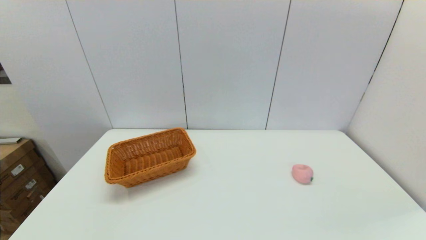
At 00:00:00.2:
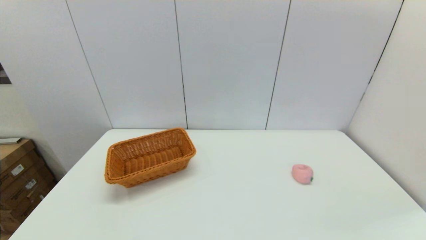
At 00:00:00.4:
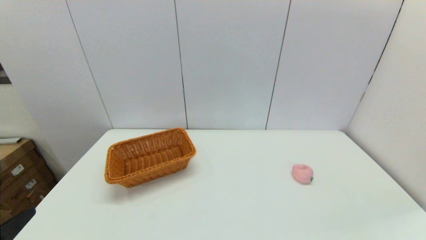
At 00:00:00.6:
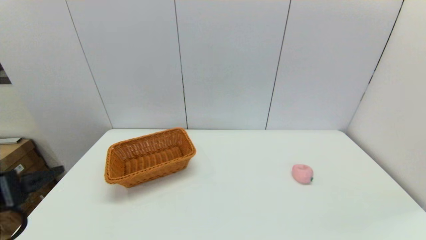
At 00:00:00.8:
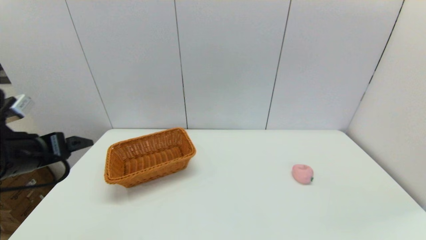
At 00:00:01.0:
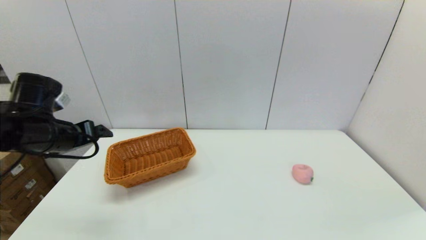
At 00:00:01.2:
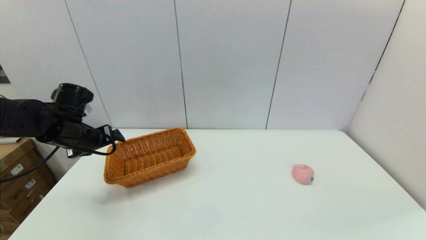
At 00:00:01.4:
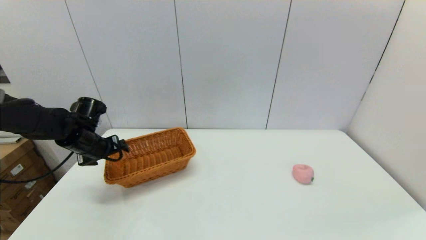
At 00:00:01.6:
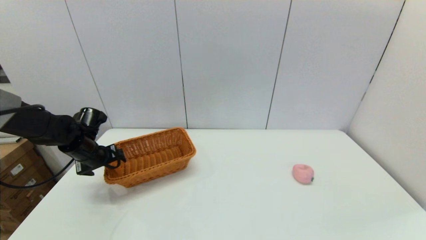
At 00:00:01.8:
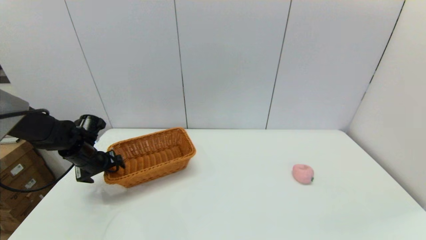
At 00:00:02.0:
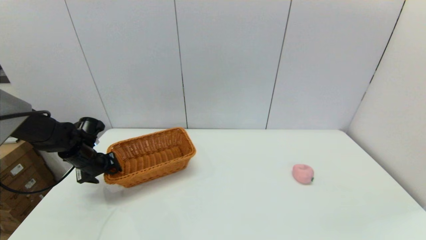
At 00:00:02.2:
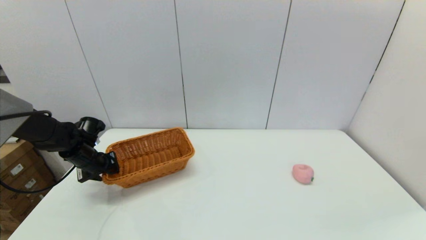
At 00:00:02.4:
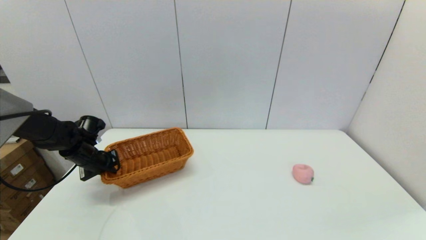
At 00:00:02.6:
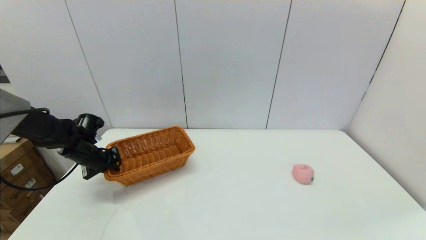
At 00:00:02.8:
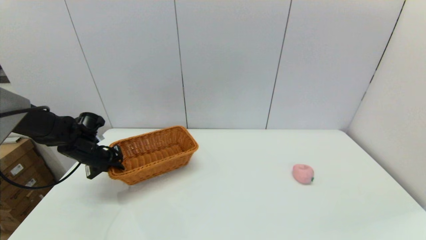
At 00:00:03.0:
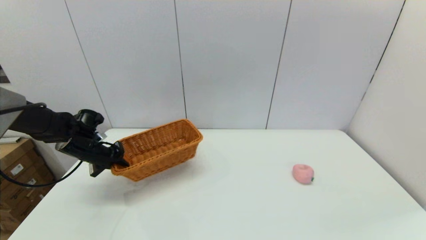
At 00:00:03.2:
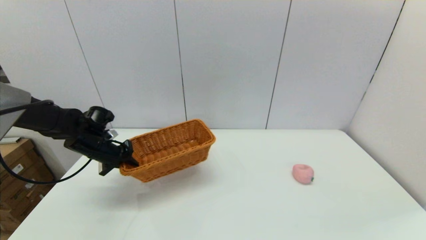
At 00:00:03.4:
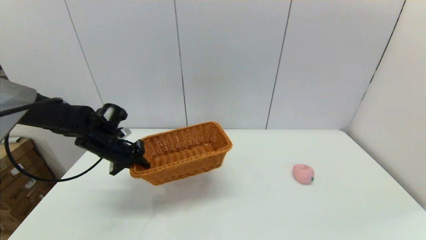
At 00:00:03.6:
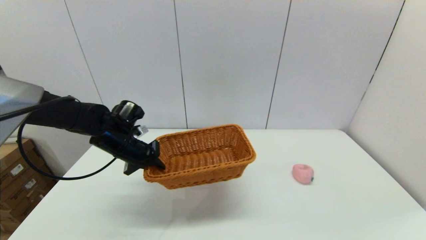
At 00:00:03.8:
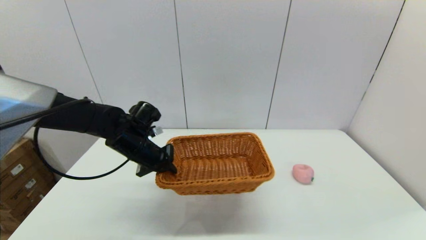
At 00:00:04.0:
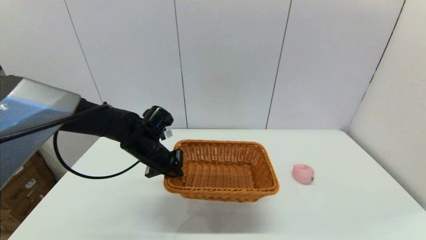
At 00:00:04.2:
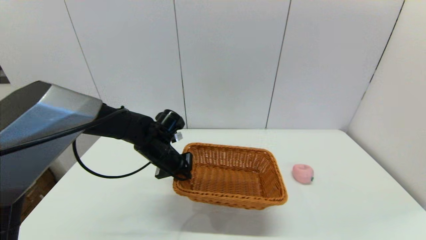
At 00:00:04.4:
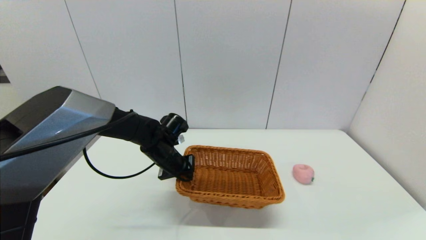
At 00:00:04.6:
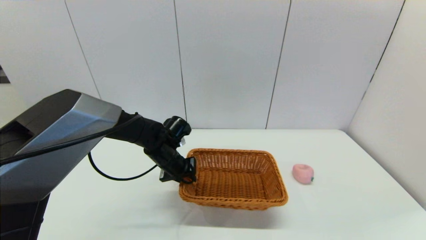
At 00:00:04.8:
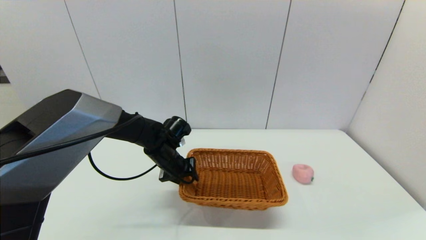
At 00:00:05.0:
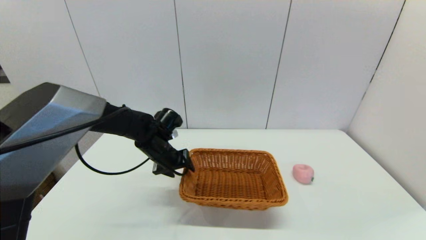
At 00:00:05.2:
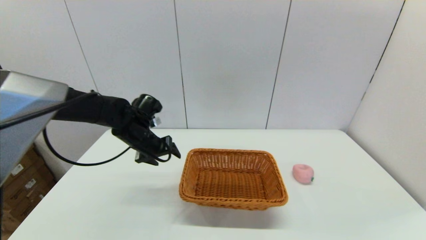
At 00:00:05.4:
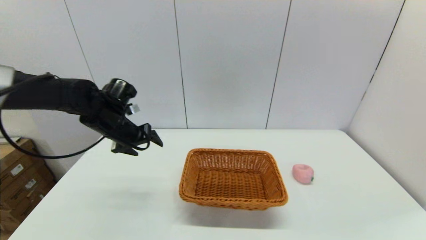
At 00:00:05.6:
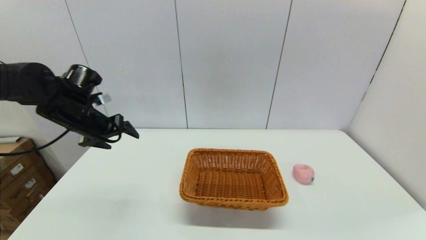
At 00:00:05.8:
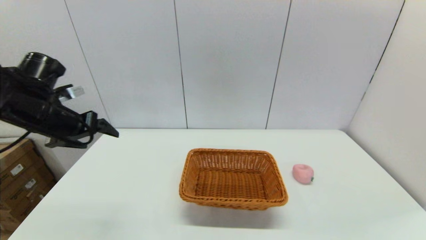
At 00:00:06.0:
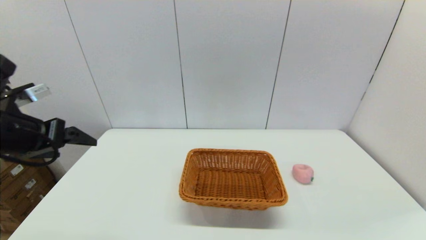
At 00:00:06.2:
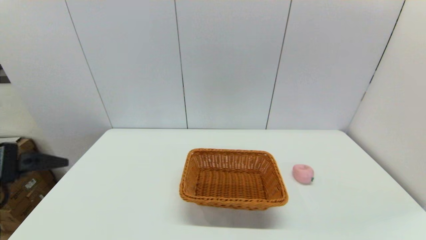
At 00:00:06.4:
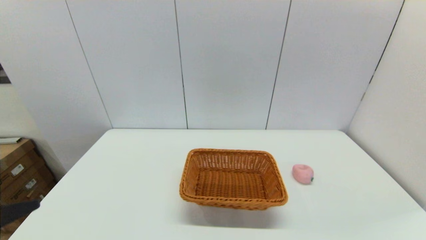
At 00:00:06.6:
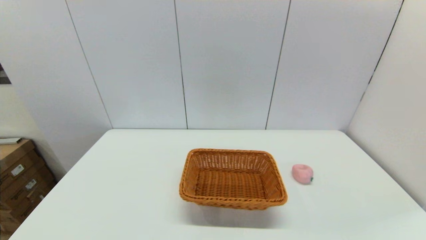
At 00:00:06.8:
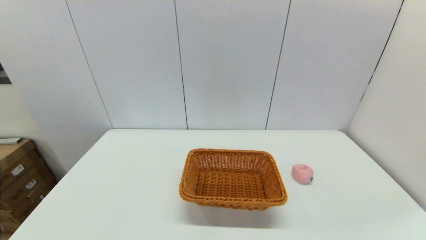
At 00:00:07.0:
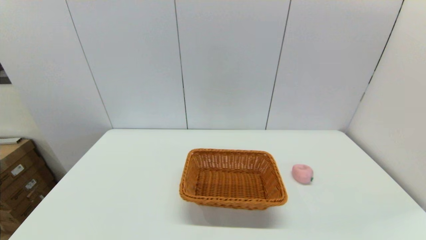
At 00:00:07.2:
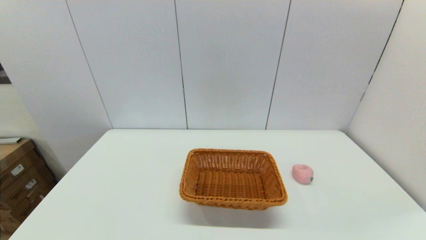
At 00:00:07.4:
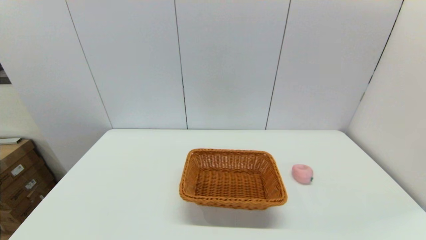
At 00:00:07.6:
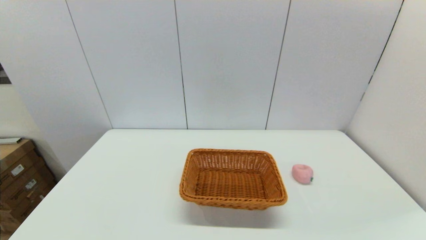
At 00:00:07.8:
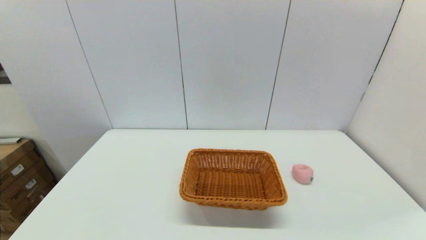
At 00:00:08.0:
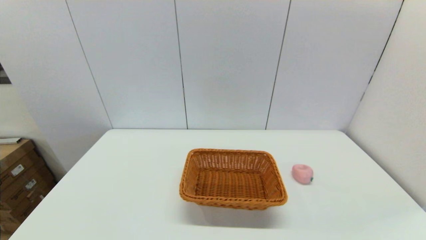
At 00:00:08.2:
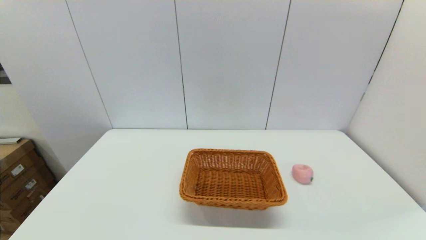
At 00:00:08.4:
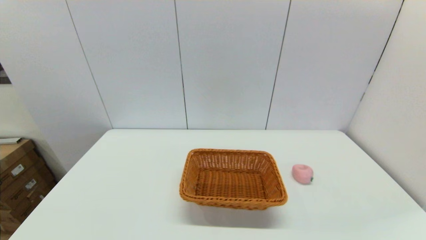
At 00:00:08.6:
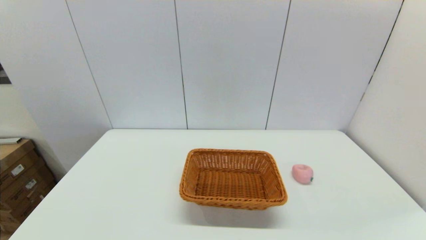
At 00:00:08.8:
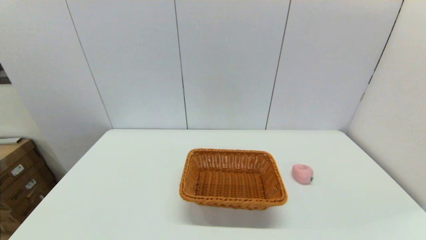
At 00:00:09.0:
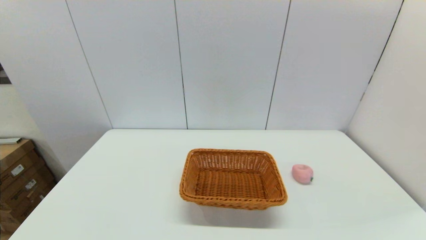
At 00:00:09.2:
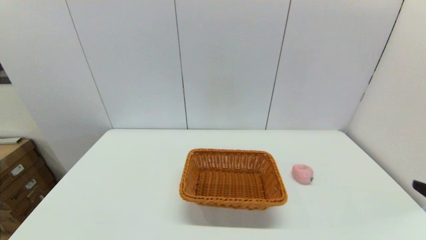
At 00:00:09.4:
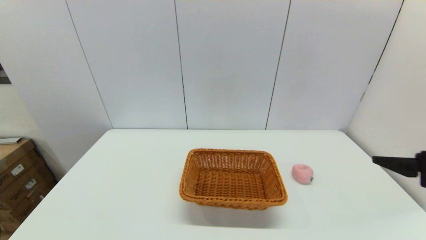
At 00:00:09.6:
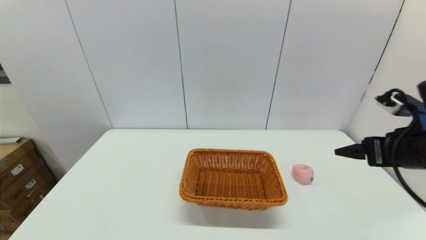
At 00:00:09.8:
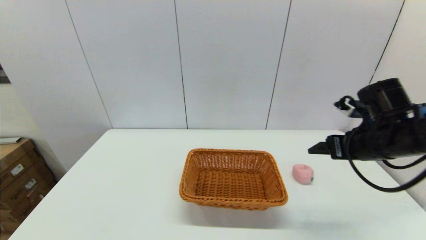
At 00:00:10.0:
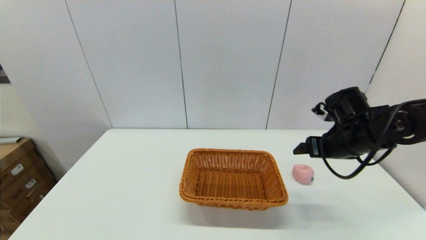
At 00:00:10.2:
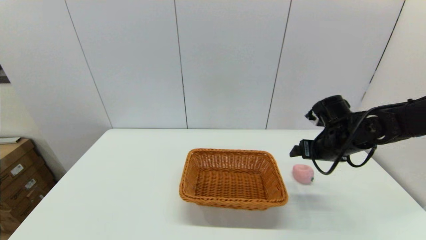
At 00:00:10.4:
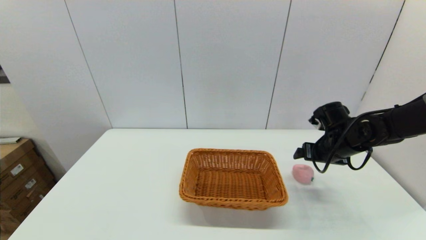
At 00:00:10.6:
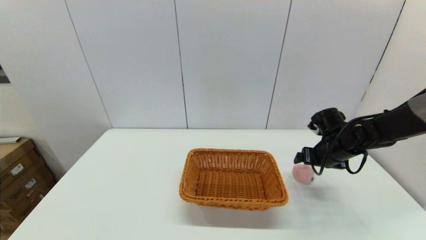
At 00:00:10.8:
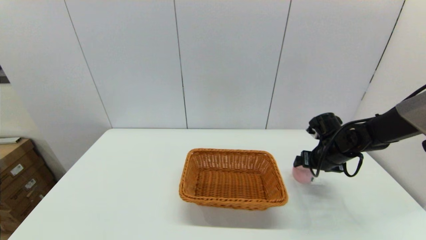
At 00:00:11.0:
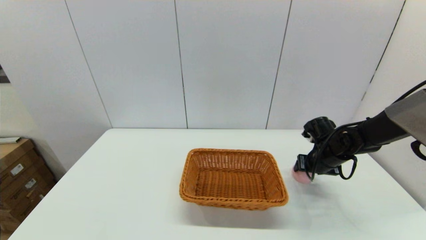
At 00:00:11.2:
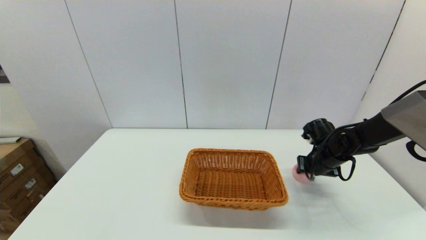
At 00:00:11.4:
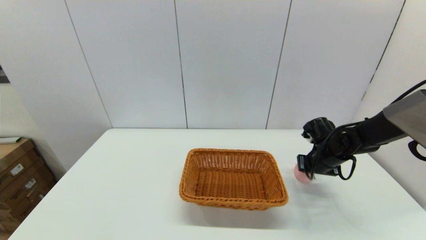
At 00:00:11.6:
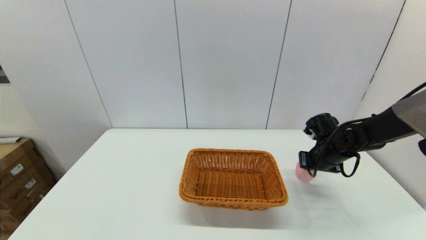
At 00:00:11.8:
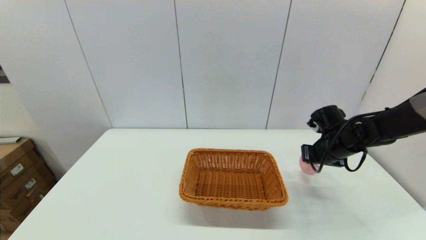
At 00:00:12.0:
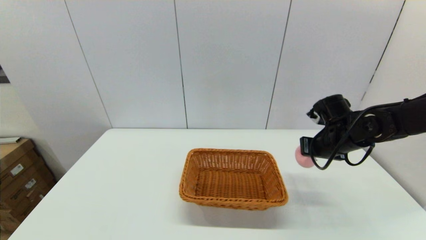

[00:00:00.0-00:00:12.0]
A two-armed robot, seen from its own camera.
Step, 00:00:00.0 to 00:00:02.4: Grasp the light basket with the left gripper.
Step, 00:00:02.8 to 00:00:05.2: Place the light basket on the middle of the table with the left gripper.
Step, 00:00:05.4 to 00:00:11.6: Grasp the peach with the right gripper.
00:00:00.0 to 00:00:01.6: The left gripper travels forward by approximately 40 cm.
00:00:01.6 to 00:00:03.0: The left gripper closes its fingers.
00:00:03.0 to 00:00:04.4: The left gripper moves to the right, approximately 20 cm.
00:00:04.4 to 00:00:06.0: The left gripper travels to the left, upward and backward by about 30 cm, and opens its fingers.
00:00:06.0 to 00:00:07.6: The left gripper moves backward and downward, roughly 25 cm.
00:00:09.0 to 00:00:10.4: The right gripper moves forward, approximately 35 cm.
00:00:10.4 to 00:00:12.0: The right gripper reaches approximately 5 cm downward, then returns, and closes.

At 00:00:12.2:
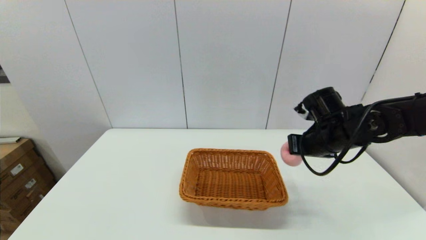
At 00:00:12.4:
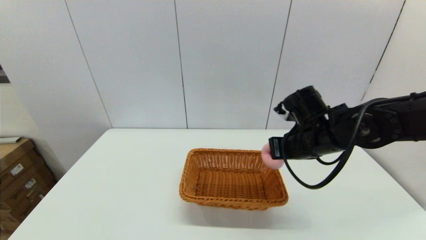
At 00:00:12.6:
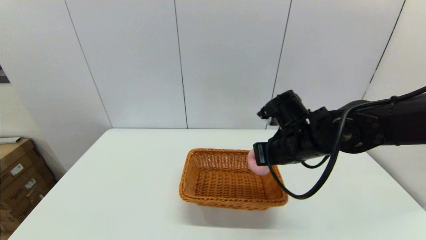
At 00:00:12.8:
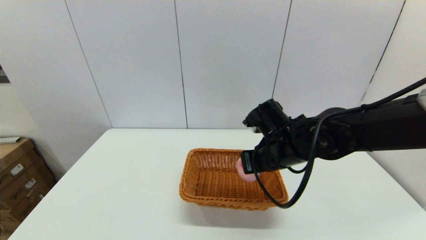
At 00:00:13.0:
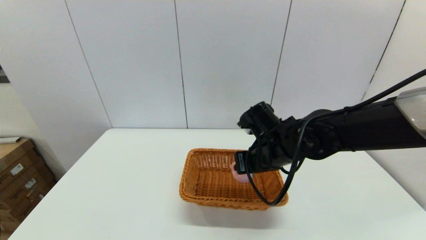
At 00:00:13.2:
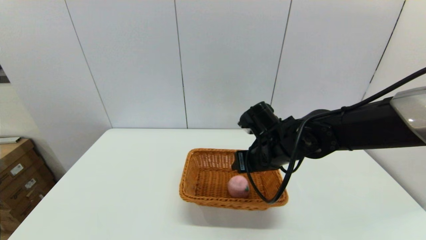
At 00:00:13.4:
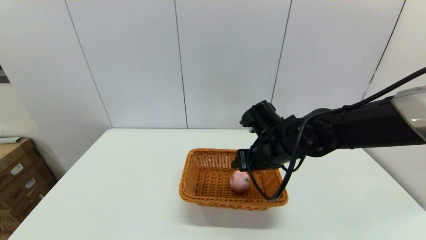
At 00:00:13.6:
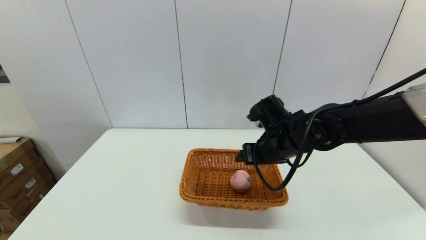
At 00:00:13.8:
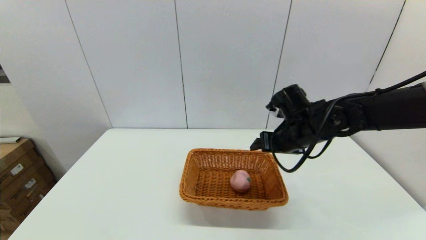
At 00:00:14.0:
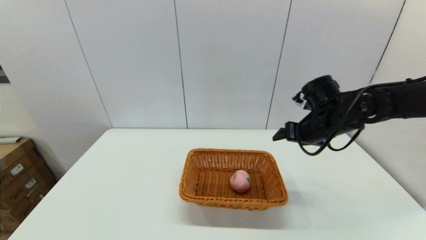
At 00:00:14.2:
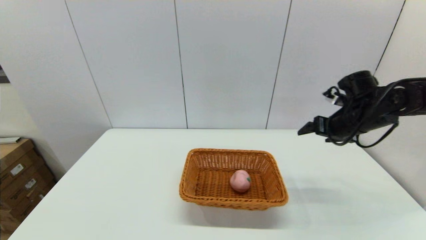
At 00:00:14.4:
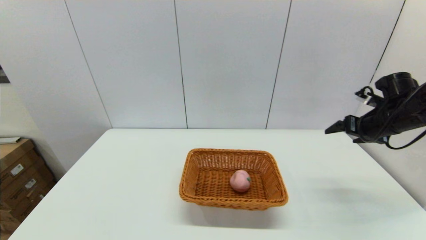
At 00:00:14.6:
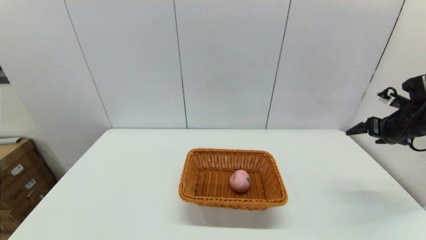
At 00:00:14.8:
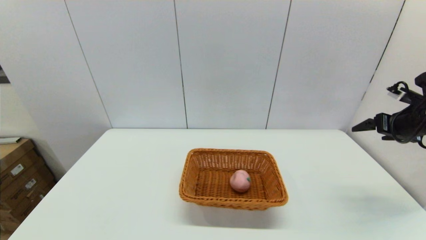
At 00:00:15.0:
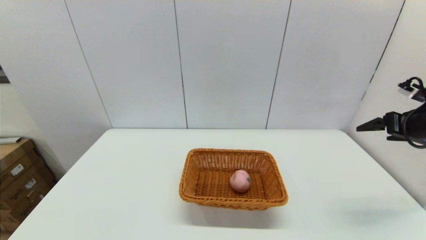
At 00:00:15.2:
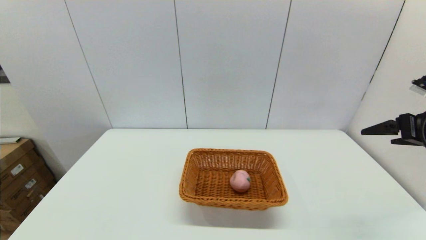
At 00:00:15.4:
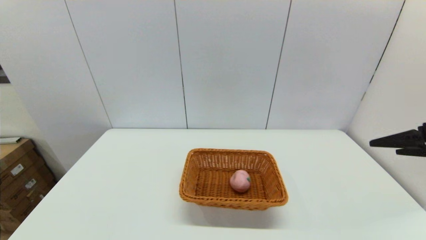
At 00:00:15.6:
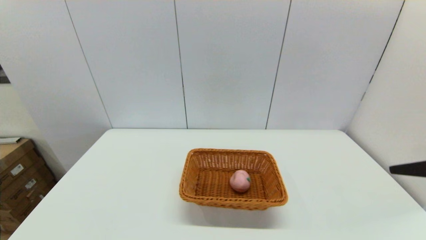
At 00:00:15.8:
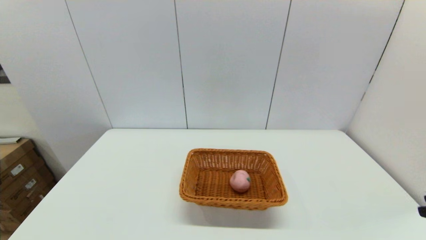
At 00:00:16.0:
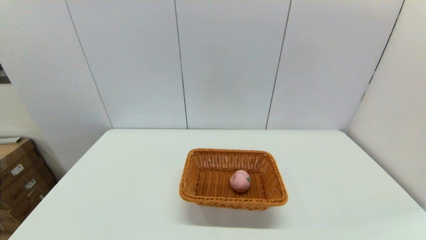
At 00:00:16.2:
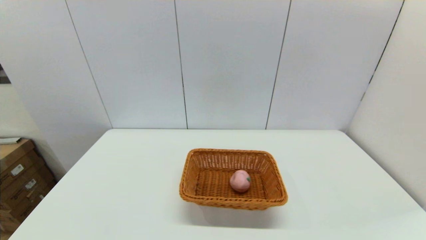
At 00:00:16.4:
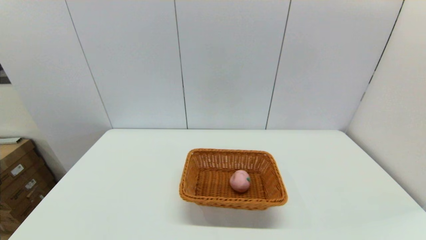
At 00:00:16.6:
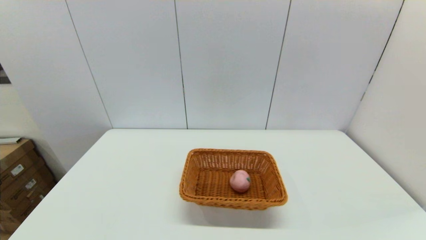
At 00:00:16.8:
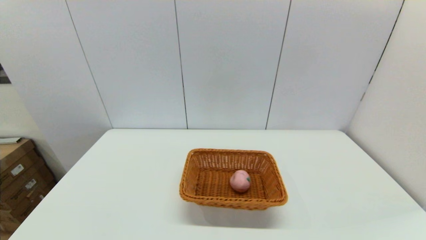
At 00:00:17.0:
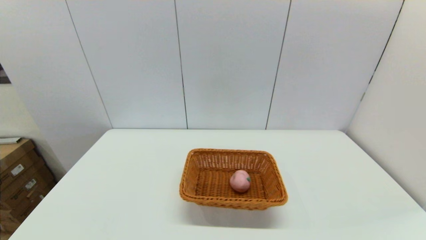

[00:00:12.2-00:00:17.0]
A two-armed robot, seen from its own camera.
Step, 00:00:12.2 to 00:00:13.2: Place the peach into the light basket with the right gripper.
00:00:12.2 to 00:00:13.8: The right gripper opens up.
00:00:13.8 to 00:00:15.4: The right gripper shifts some 25 cm to the right, backward and upward.
00:00:15.4 to 00:00:17.0: The right gripper heads backward, covering about 15 cm.
